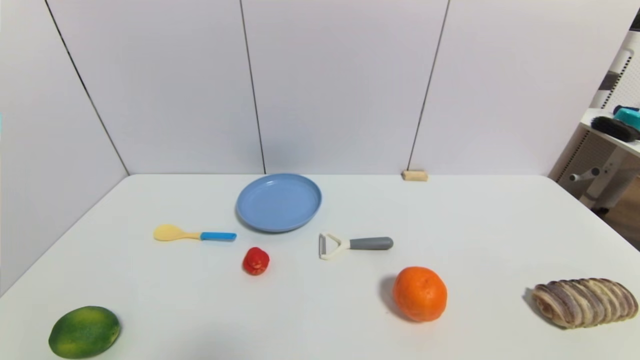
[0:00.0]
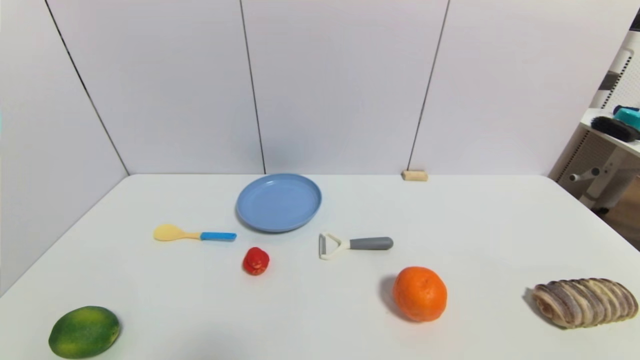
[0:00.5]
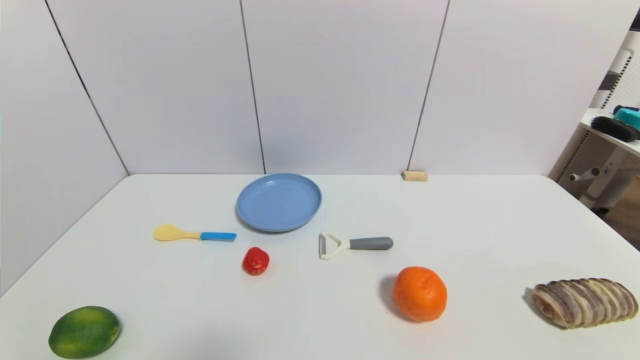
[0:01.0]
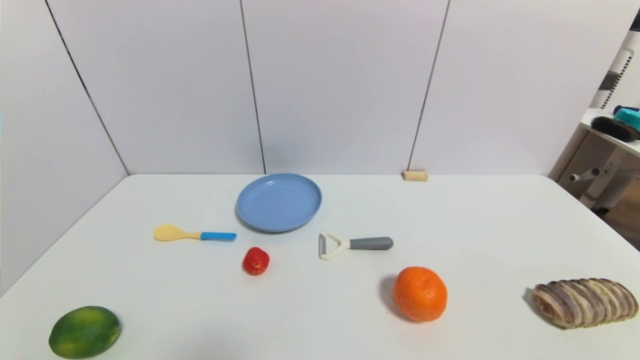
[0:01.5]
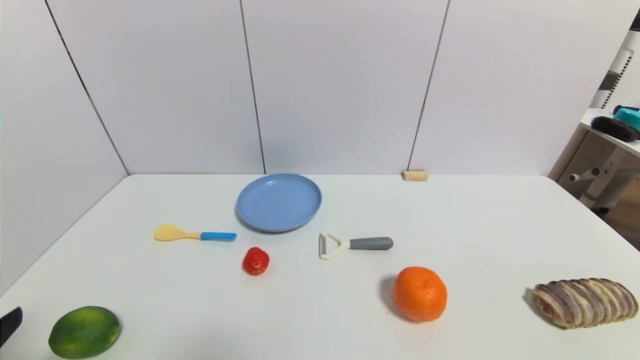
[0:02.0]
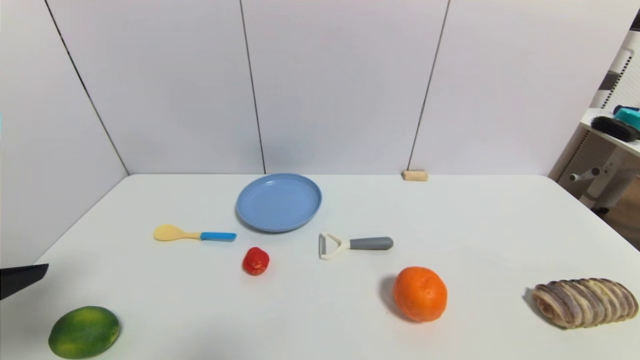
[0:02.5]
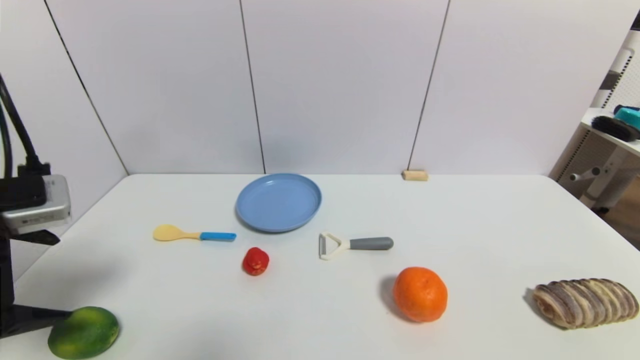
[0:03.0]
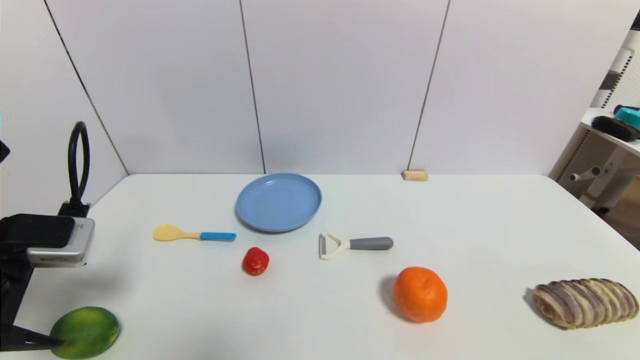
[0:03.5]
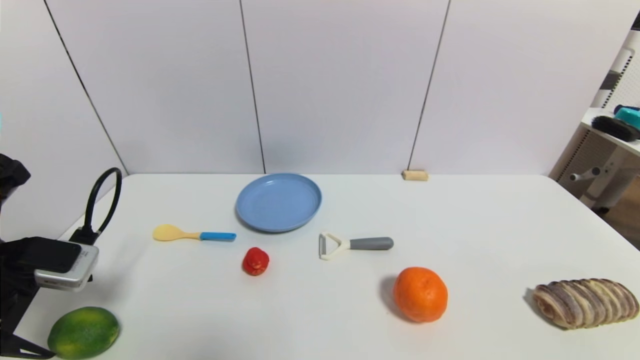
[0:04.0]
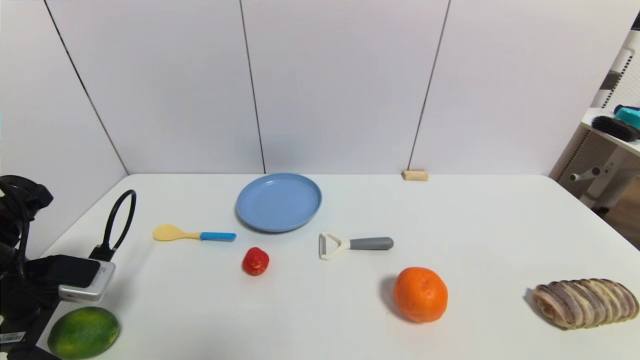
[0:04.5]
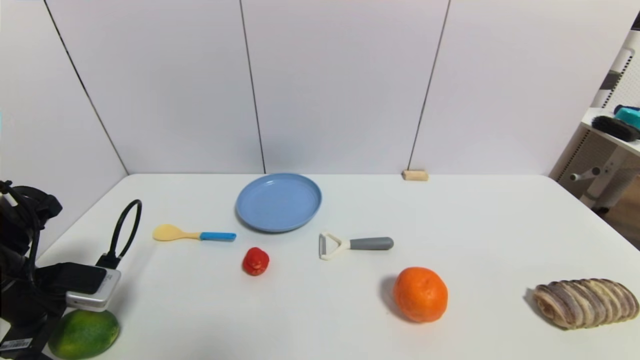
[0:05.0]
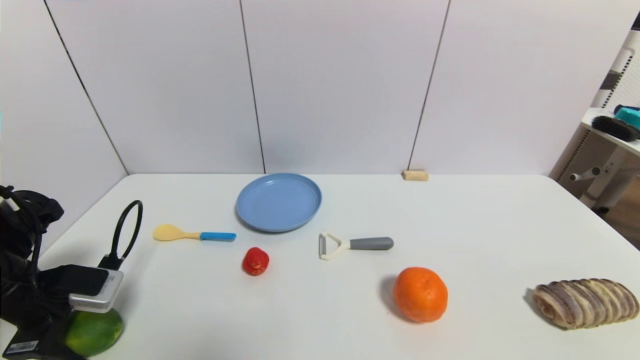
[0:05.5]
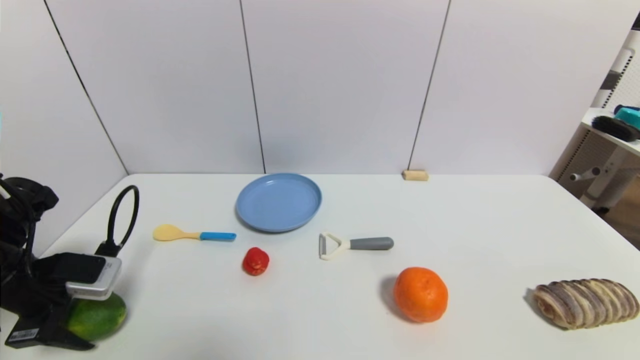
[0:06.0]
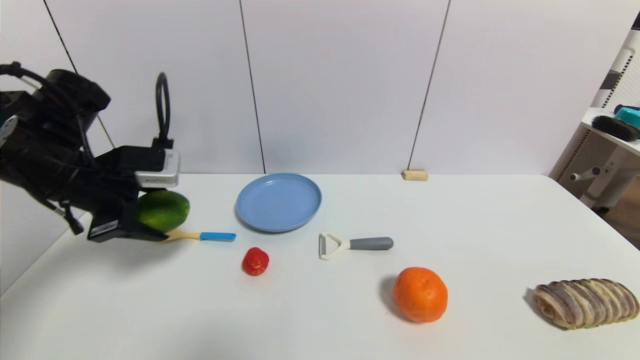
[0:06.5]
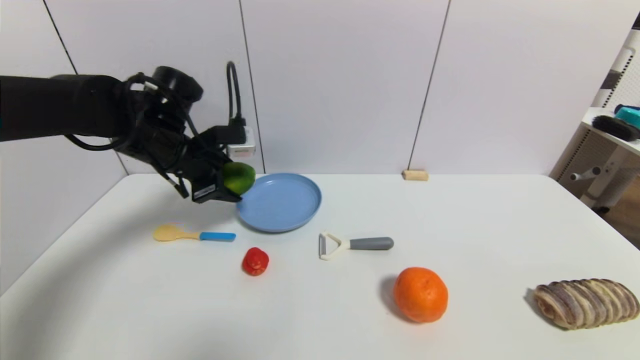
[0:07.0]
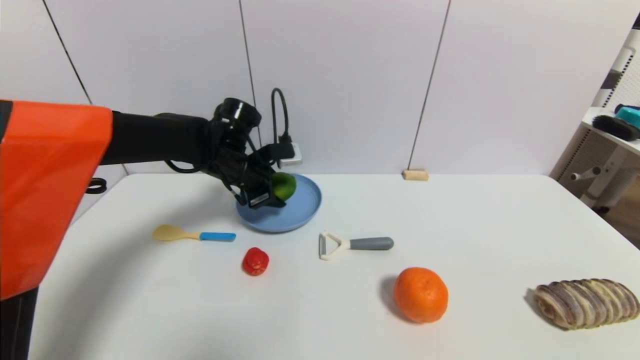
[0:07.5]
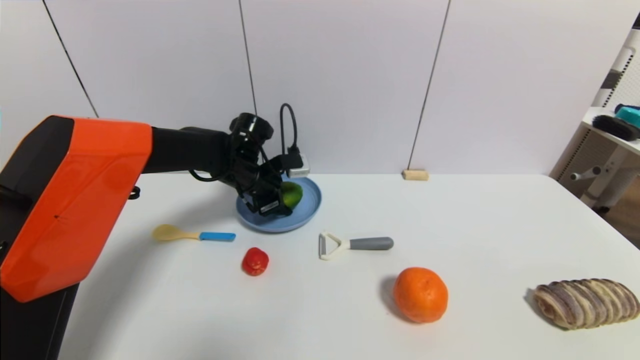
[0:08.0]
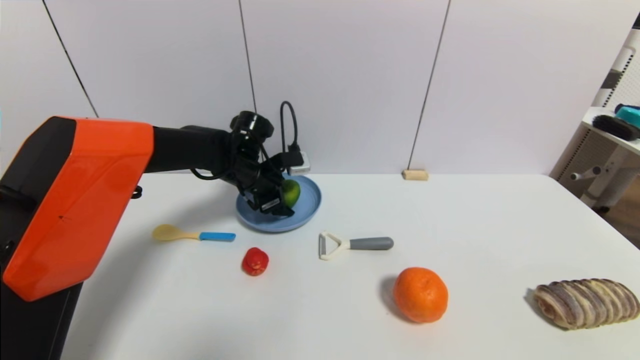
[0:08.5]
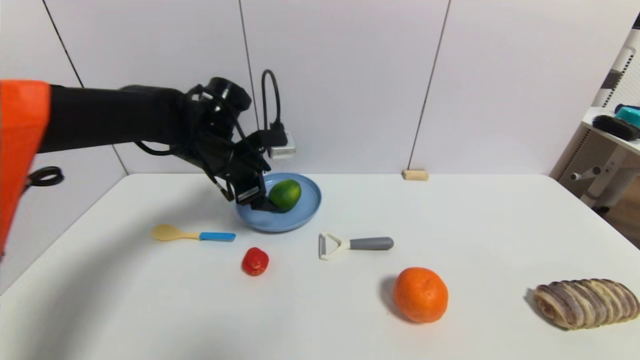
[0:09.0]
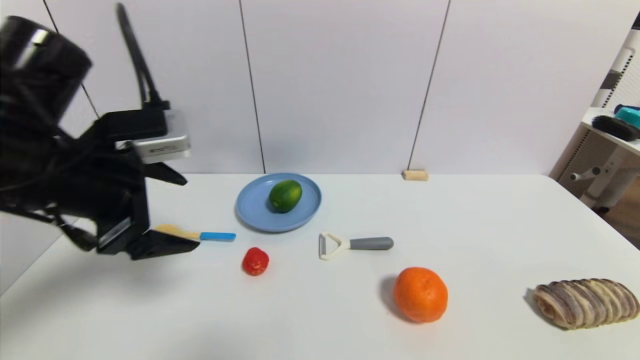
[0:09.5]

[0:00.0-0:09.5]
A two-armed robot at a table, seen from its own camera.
Task of the whole recording: use a gripper to pick the target object and place on the blue plate.
Step, 0:00.0 to 0:05.5: Grasp the green lemon with the left gripper.
Step, 0:06.0 to 0:08.5: Place the green lemon on the blue plate with the left gripper.
0:02.0 to 0:04.0: The left gripper heads forward, covering about 20 cm.
0:04.0 to 0:05.5: The left gripper heads downward, covering some 5 cm, and closes.
0:05.5 to 0:07.5: The left gripper heads to the right and forward, covering approximately 30 cm.
0:07.5 to 0:09.5: The left gripper travels backward, upward and to the left by some 25 cm, and opens.

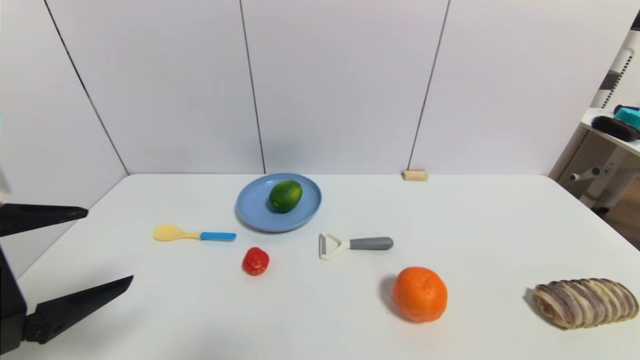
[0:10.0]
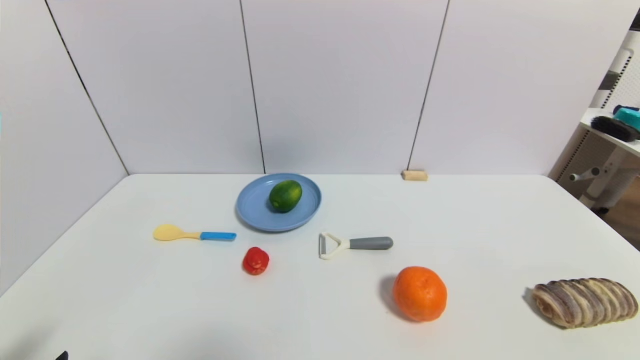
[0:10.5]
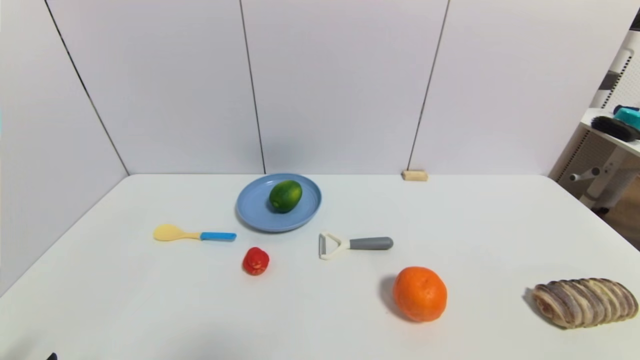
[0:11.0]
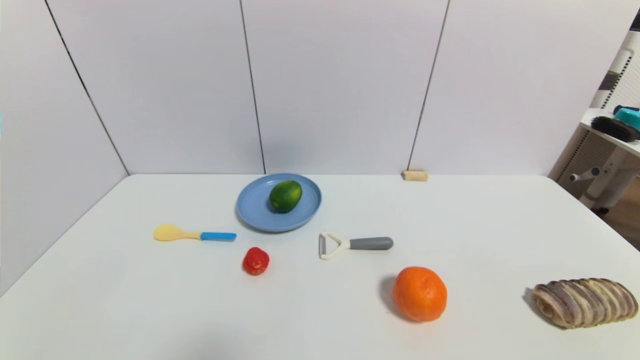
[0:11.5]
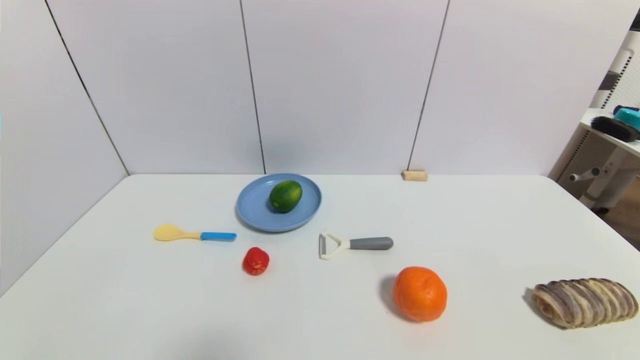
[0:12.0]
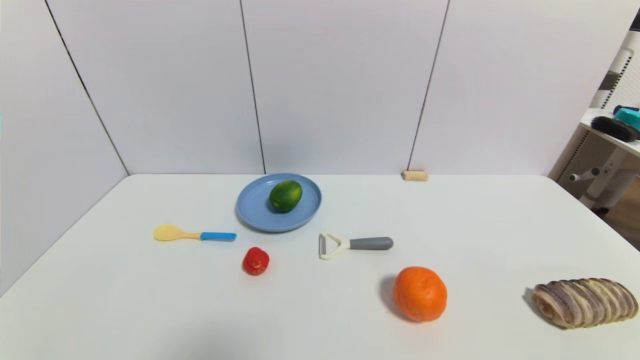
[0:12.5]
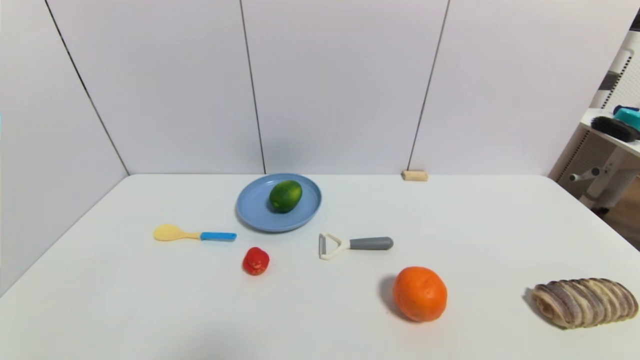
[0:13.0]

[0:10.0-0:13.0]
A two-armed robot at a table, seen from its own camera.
Task of the whole recording: use a gripper to pick the target object and place on the blue plate.
0:10.0 to 0:11.5: The left gripper heads downward and backward, covering roughly 20 cm.
